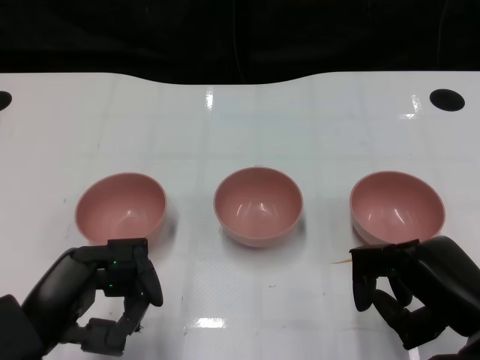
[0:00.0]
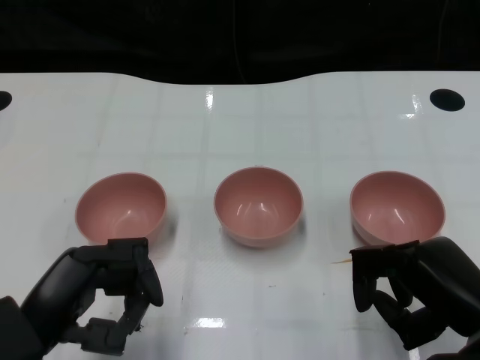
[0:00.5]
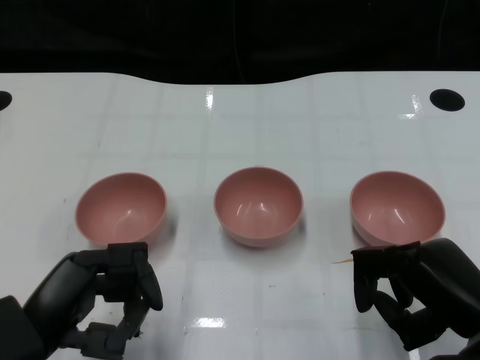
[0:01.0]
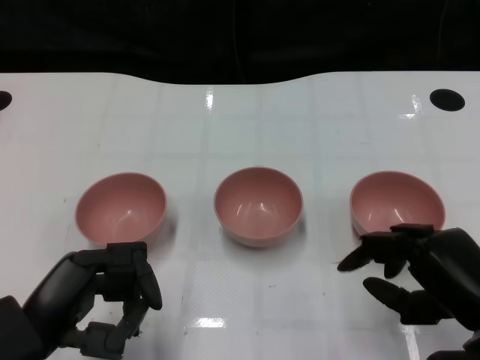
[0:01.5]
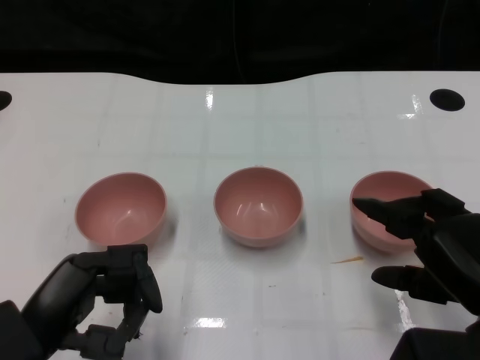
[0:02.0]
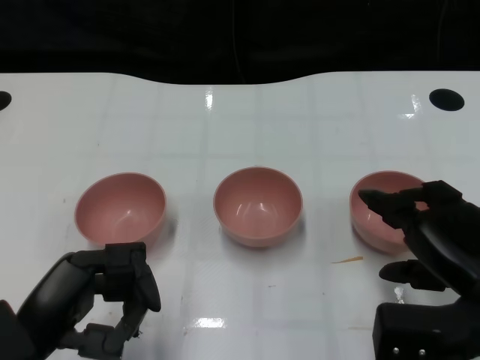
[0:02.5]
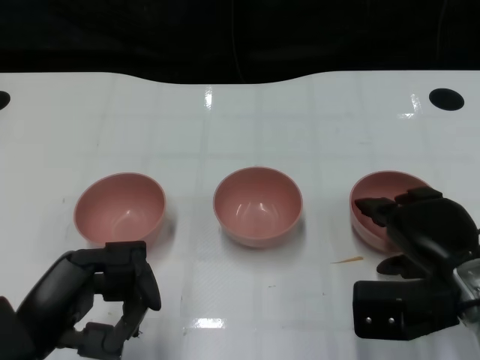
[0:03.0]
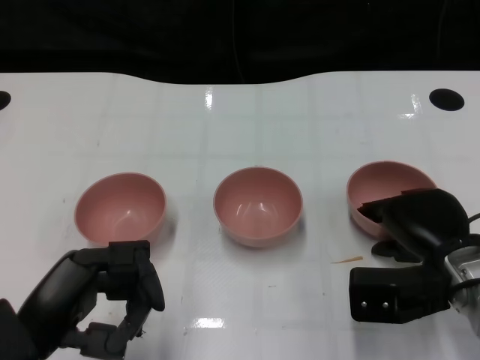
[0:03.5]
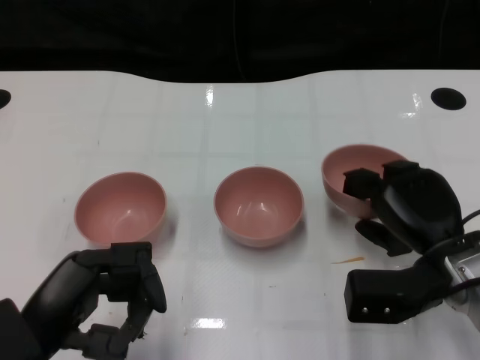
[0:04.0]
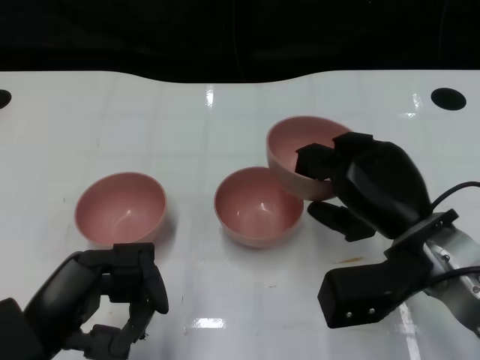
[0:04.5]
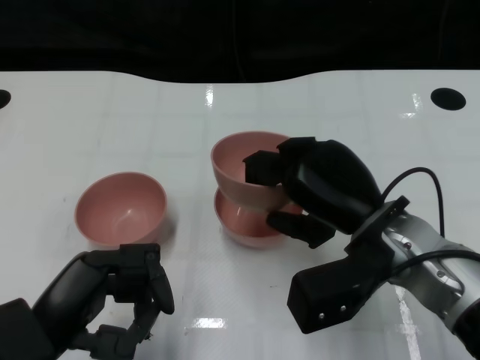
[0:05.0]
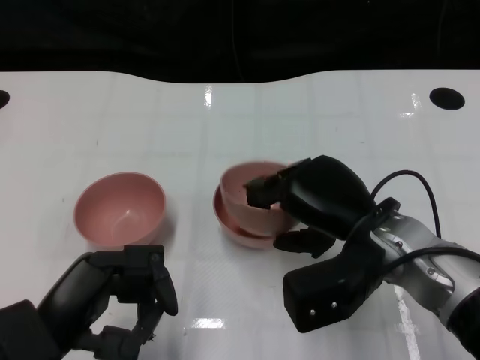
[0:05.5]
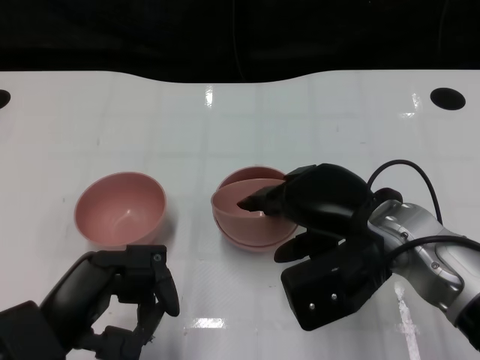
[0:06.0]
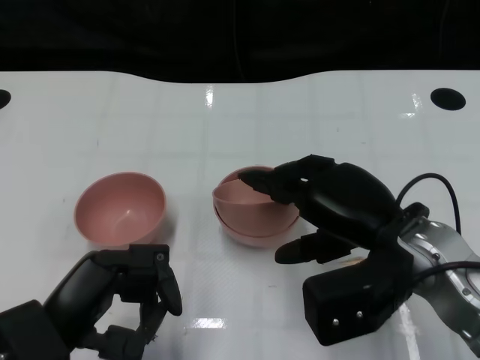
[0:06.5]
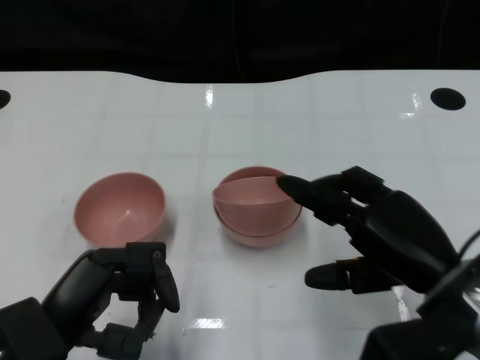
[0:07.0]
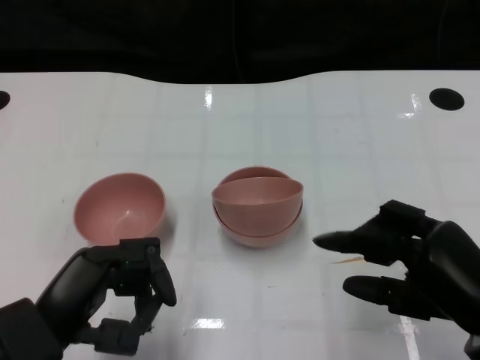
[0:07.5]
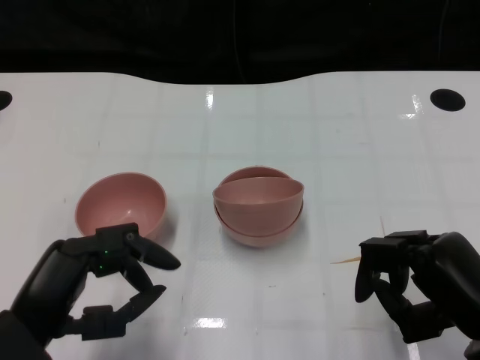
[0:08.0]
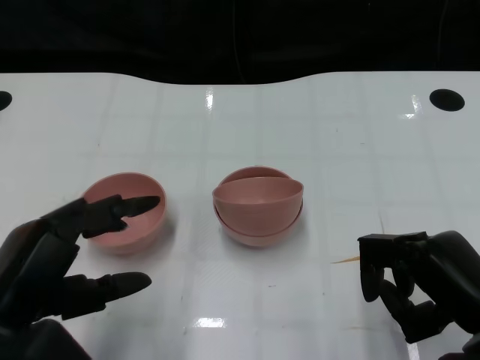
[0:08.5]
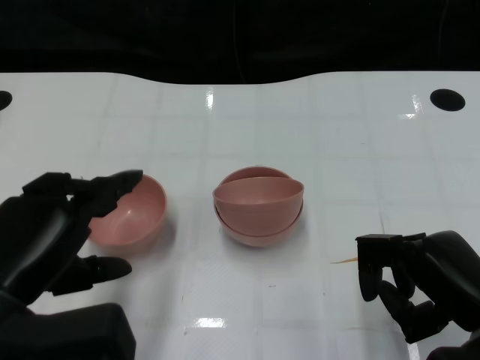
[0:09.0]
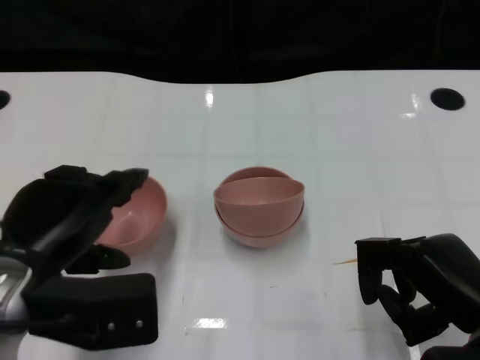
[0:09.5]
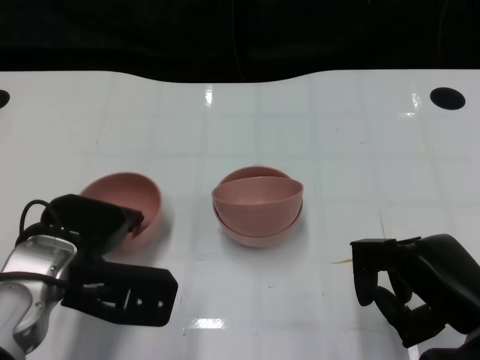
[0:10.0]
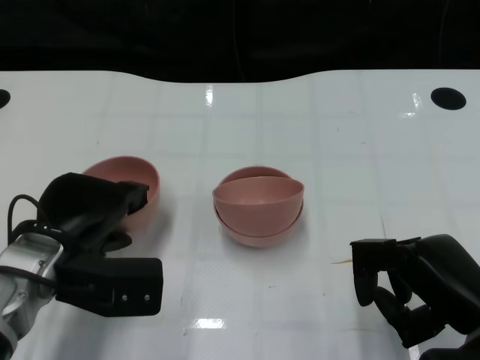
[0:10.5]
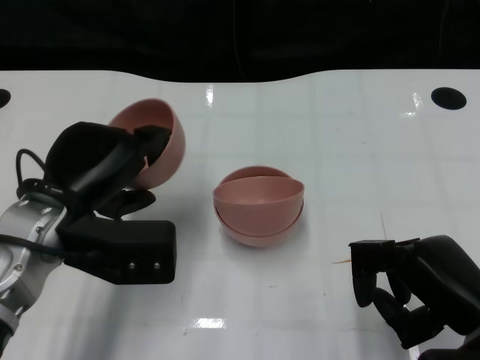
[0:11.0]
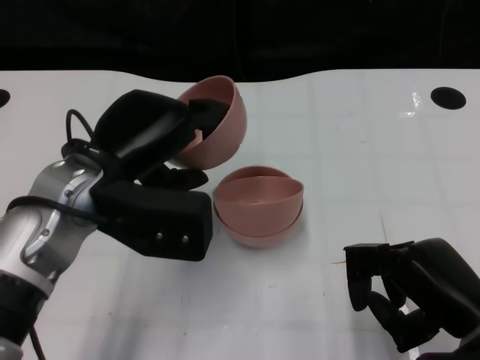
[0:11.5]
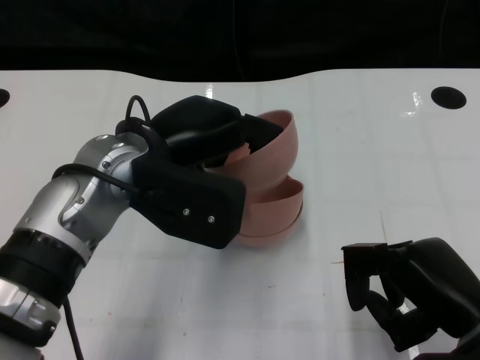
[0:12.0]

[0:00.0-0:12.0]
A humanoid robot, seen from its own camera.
Task of the whole recording: Pick up the bowl on one side of the table and place it on top of the middle bowl, then pick up the bowl on the other side of the table and place it on top of the middle bowls.
Step, 0:01.5 to 0:03.5: Grasp the bowl on the right with the right gripper.
Step, 0:04.0 to 0:07.0: Place the bowl on the right onto the bowl in the middle with right gripper.
Step, 0:07.5 to 0:10.0: Grasp the bowl on the left with the left gripper.
0:02.0 to 0:04.0: The right hand moves forward, some 10 cm.
0:04.0 to 0:06.0: The right hand heads to the left and upward, covering some 10 cm.
0:06.0 to 0:08.0: The right hand is displaced to the right and backward by approximately 15 cm.
0:08.0 to 0:10.0: The left hand heads forward, covering approximately 10 cm.
0:10.0 to 0:12.0: The left hand shifts roughly 10 cm upward and to the right.

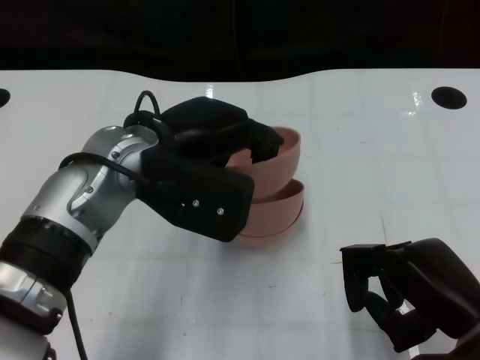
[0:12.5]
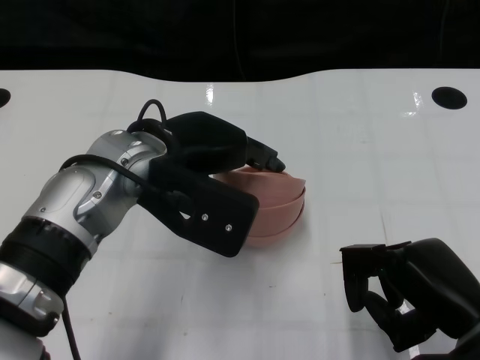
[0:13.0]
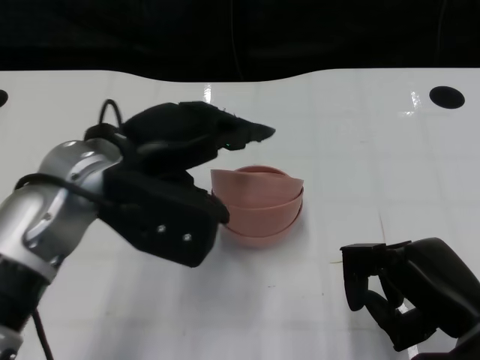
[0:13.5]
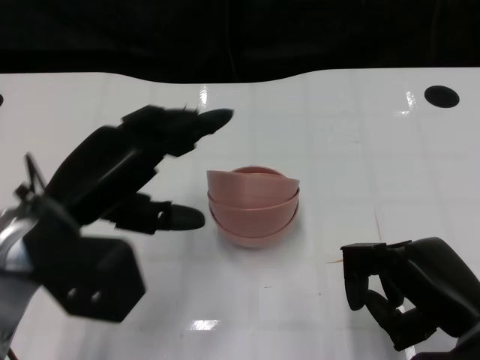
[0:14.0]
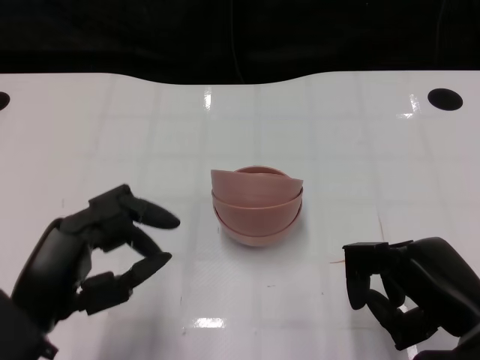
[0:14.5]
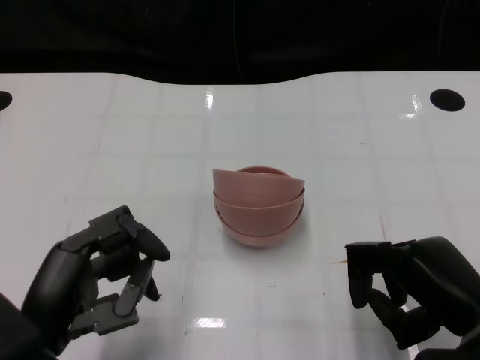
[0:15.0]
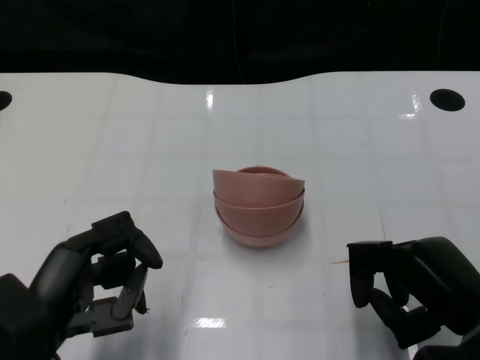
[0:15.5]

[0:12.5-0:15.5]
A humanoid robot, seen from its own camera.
Task of the whole recording: Pick up the bowl on one side of the table and place it on top of the middle bowl, then pick up the bowl on the other side of the table and place it on top of the middle bowls.
0:12.5 to 0:14.0: The left hand is displaced to the left and backward by approximately 10 cm.
0:14.0 to 0:15.5: The left hand heads backward and downward, covering approximately 10 cm.

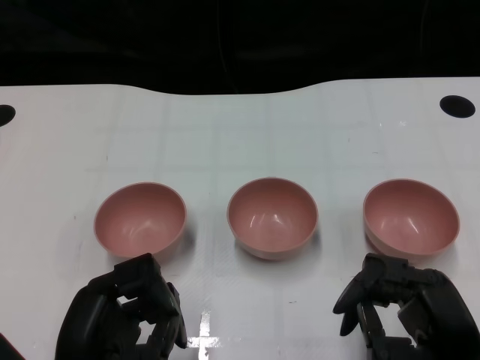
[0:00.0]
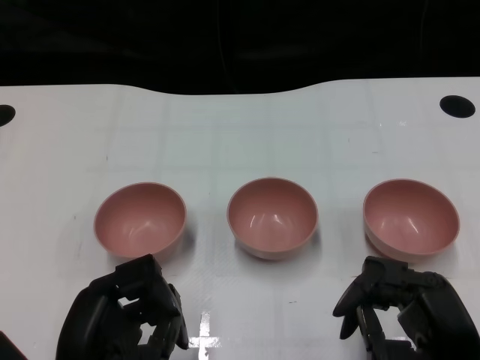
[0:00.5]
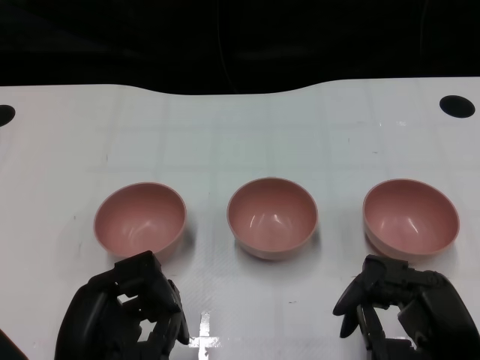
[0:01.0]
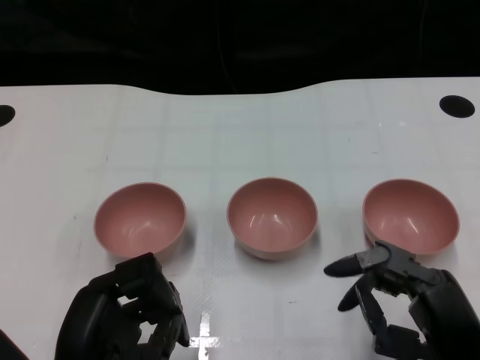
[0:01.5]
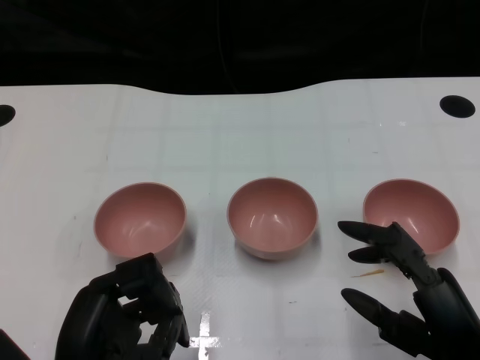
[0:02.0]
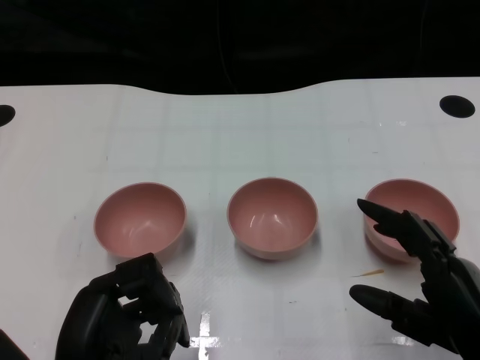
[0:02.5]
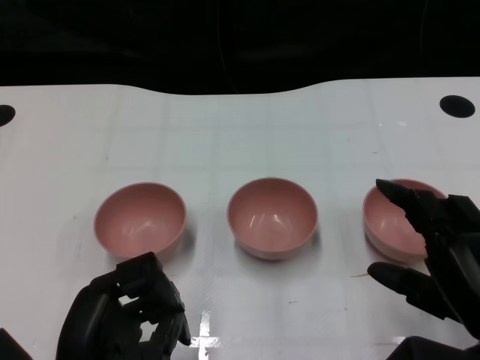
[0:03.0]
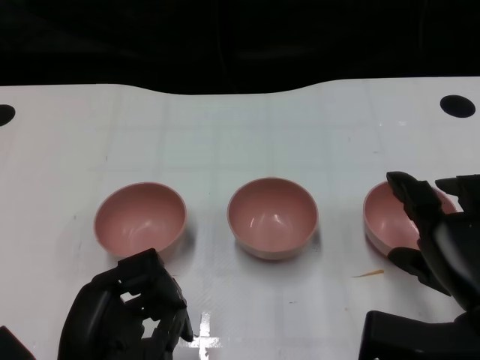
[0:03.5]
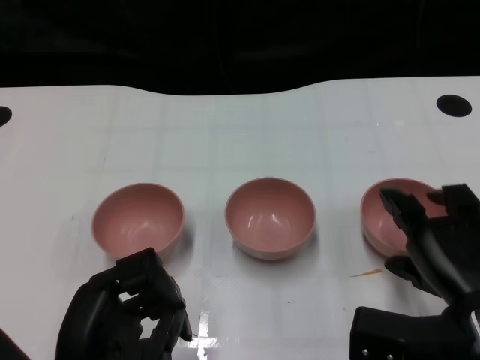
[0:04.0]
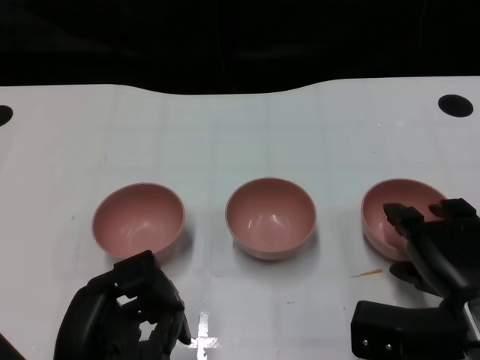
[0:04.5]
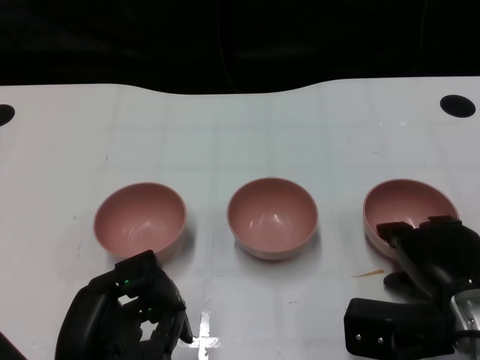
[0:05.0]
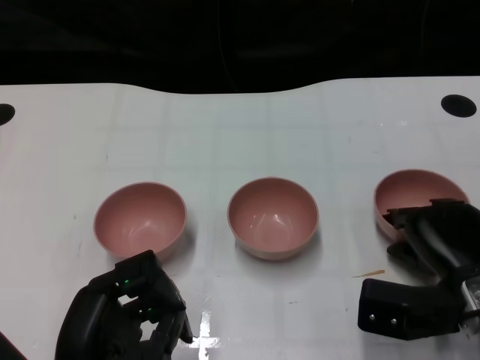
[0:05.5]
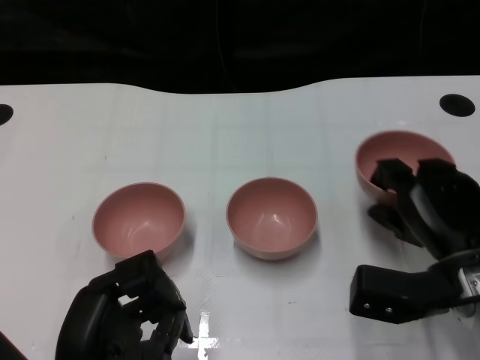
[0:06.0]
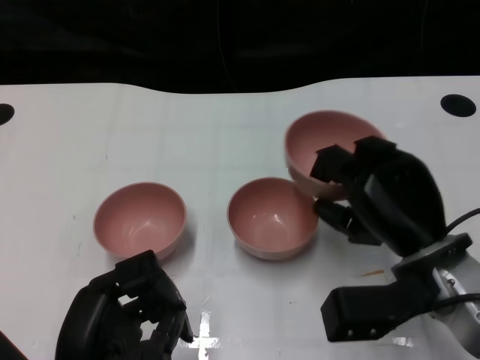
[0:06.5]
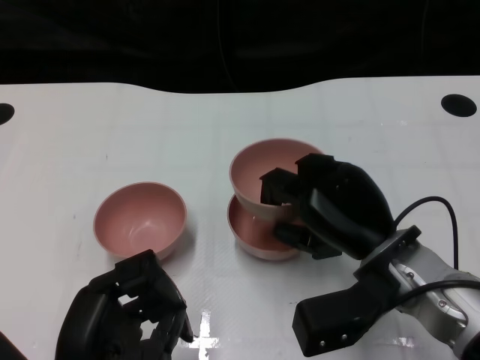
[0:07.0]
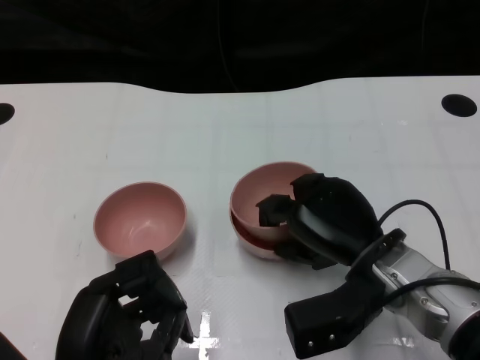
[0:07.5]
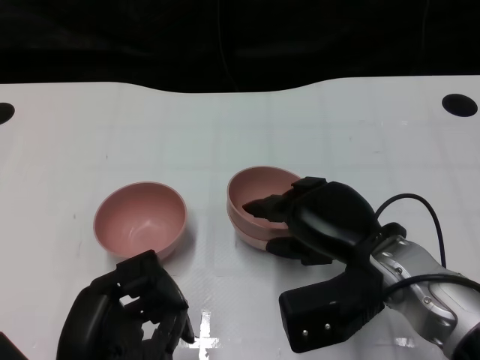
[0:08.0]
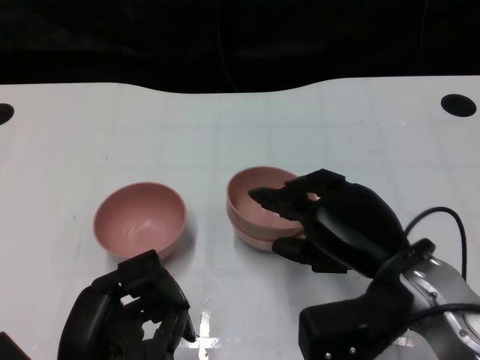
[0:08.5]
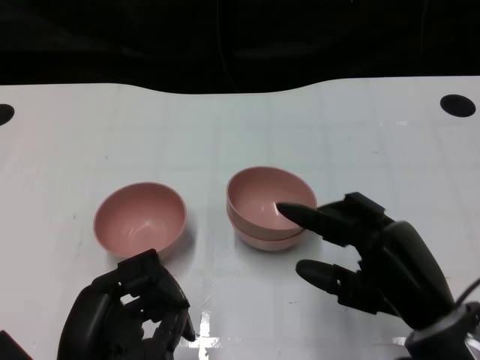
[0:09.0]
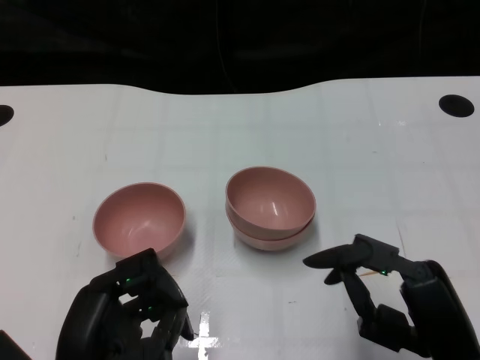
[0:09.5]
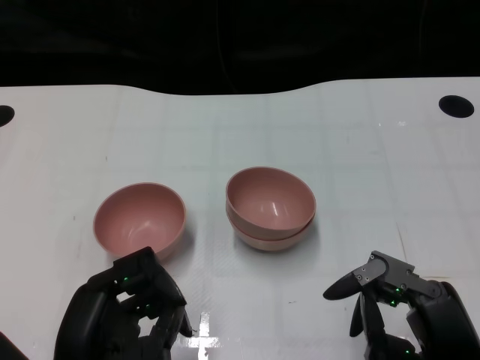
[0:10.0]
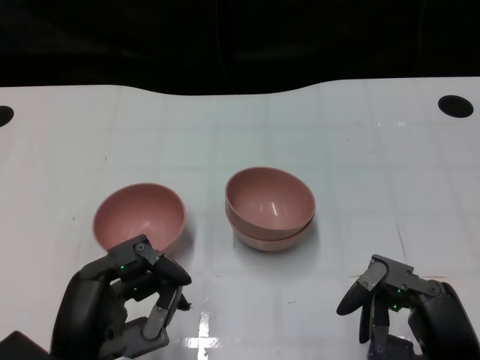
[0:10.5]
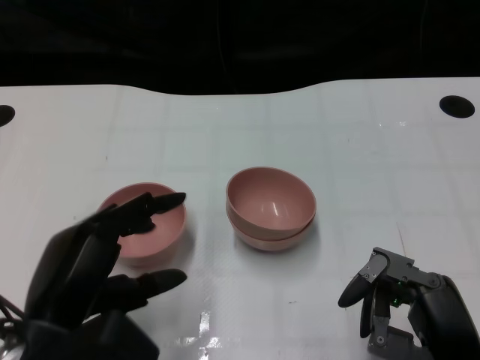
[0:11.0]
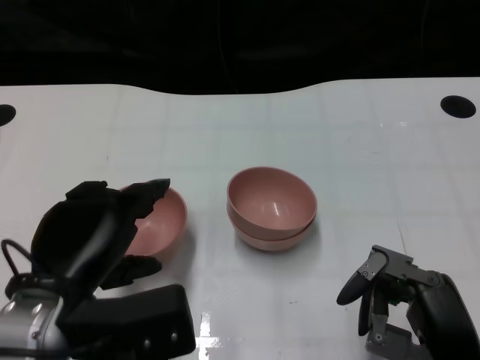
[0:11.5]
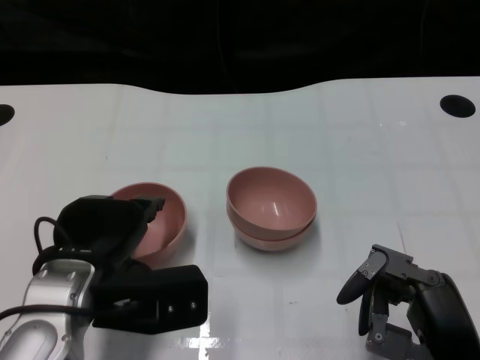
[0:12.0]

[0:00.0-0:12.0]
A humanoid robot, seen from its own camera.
Task of the whole recording: Pick up the bowl on one side of the table and place it on top of the middle bowl, then pick up the bowl on the other side of the table and place it on top of the middle bowls.
Step, 0:01.5 to 0:05.0: Grasp the bowl on the right with the right gripper.
Step, 0:05.5 to 0:08.5: Place the bowl on the right onto the bowl in the middle with right gripper.
0:02.0 to 0:04.0: The right hand ends up approximately 5 cm from where it was.
0:04.0 to 0:06.0: The right hand moves forward, approximately 5 cm.
0:06.0 to 0:08.0: The right hand goes roughly 10 cm to the left.
0:08.0 to 0:10.0: The right hand shifts roughly 15 cm backward and to the right.
0:10.0 to 0:12.0: The left hand is displaced forward by some 10 cm.
